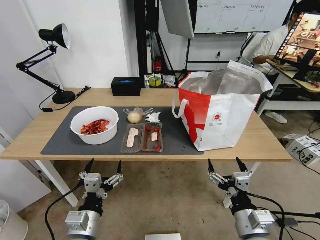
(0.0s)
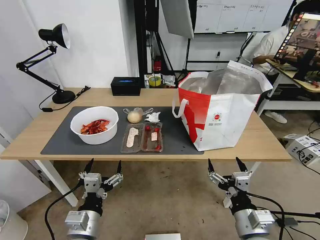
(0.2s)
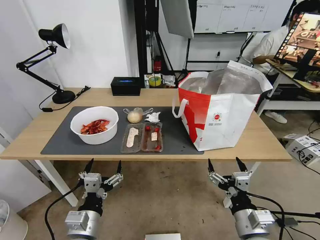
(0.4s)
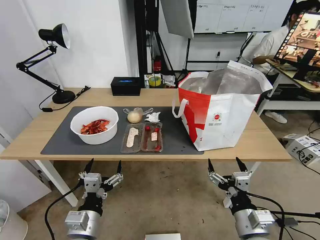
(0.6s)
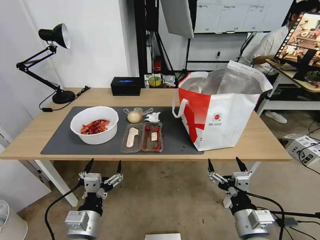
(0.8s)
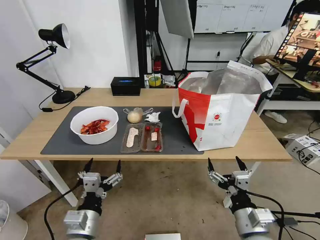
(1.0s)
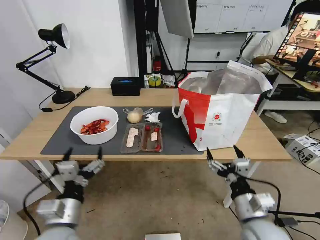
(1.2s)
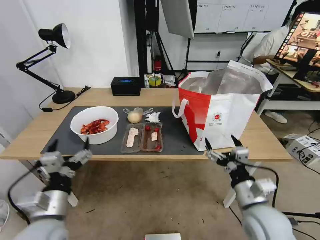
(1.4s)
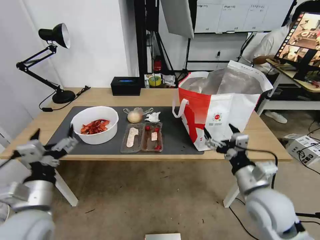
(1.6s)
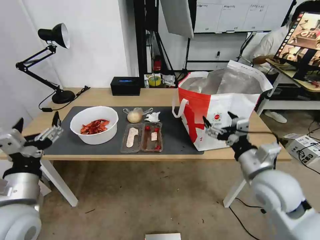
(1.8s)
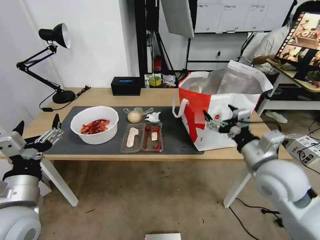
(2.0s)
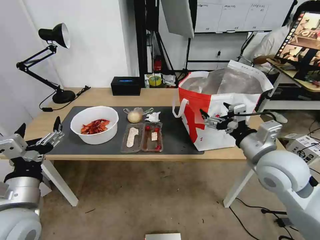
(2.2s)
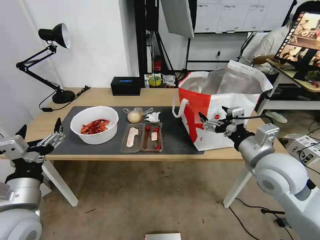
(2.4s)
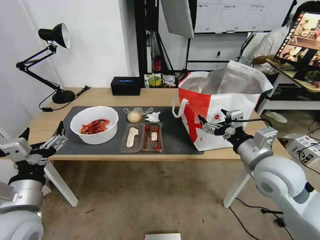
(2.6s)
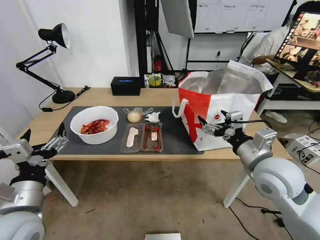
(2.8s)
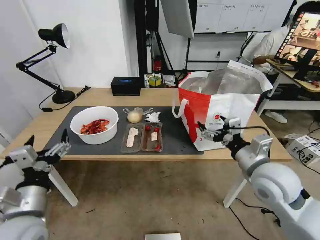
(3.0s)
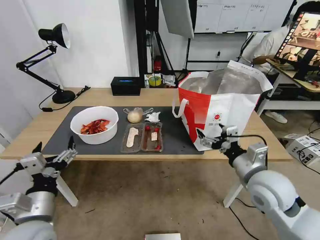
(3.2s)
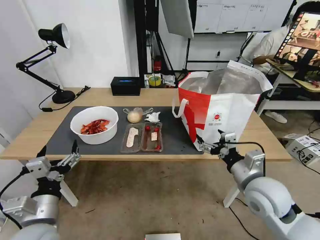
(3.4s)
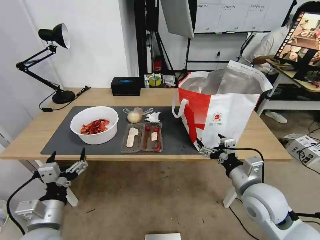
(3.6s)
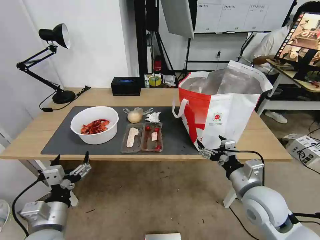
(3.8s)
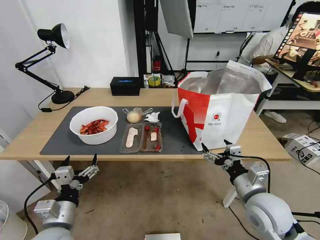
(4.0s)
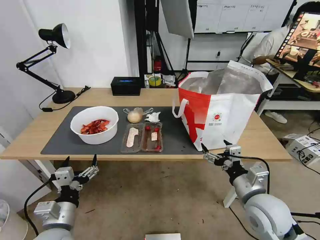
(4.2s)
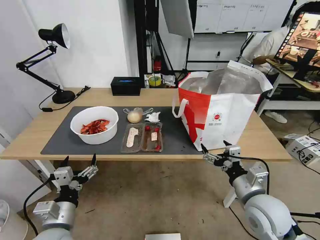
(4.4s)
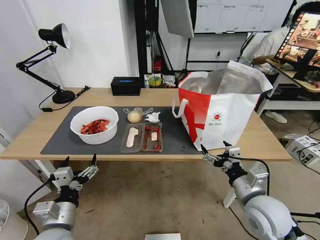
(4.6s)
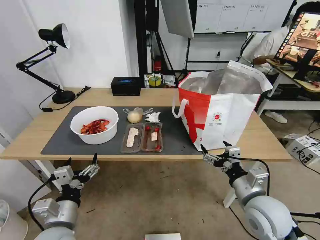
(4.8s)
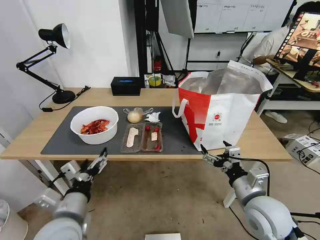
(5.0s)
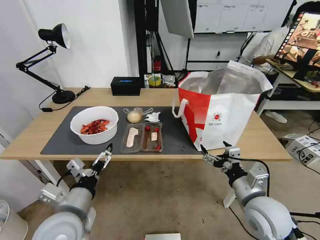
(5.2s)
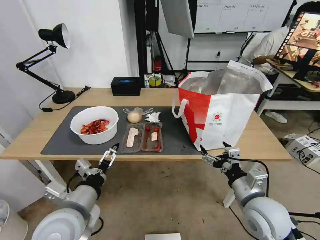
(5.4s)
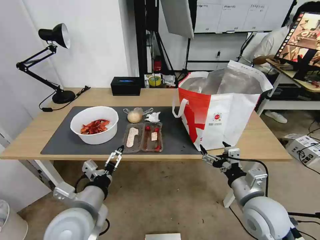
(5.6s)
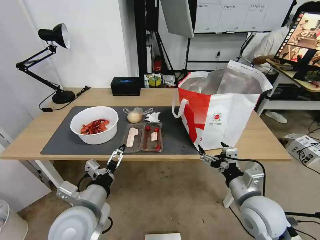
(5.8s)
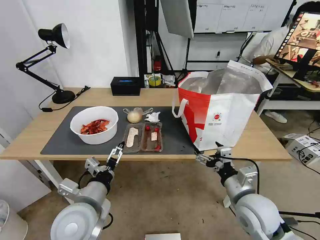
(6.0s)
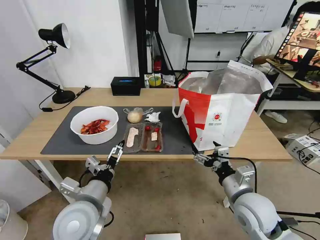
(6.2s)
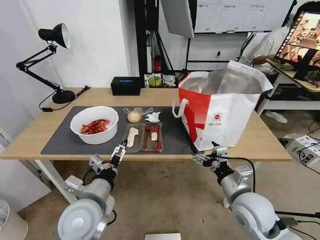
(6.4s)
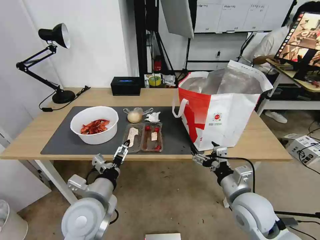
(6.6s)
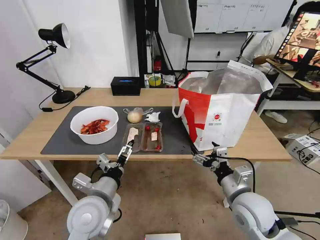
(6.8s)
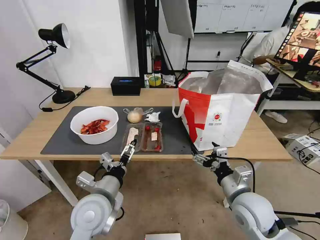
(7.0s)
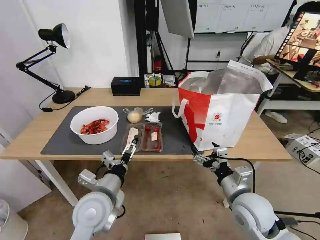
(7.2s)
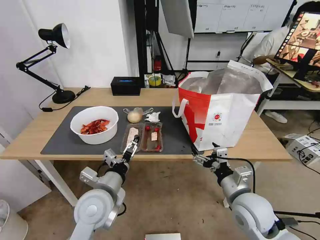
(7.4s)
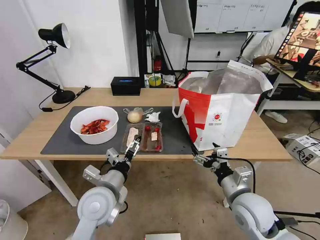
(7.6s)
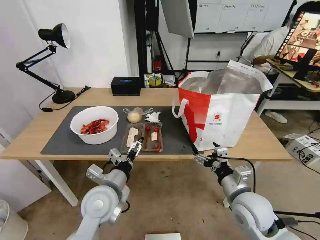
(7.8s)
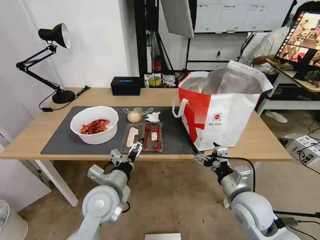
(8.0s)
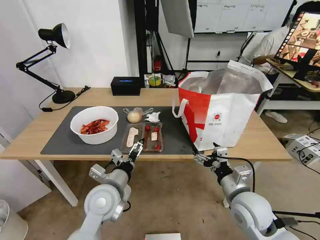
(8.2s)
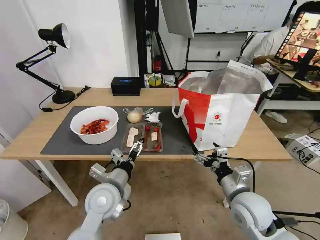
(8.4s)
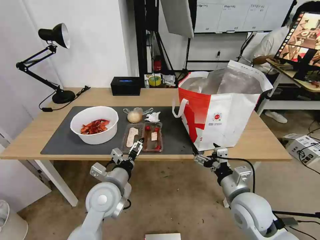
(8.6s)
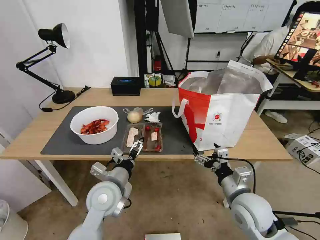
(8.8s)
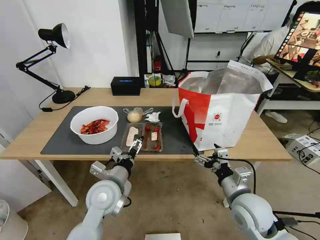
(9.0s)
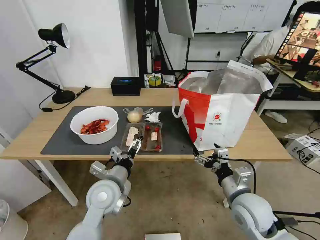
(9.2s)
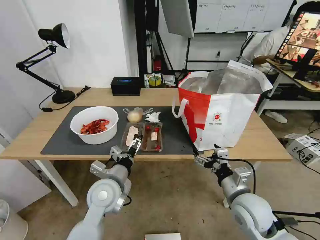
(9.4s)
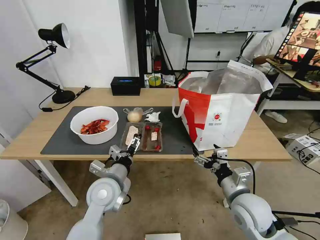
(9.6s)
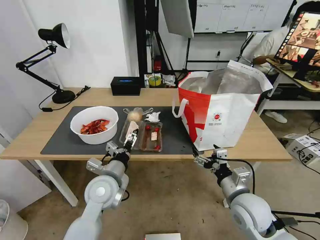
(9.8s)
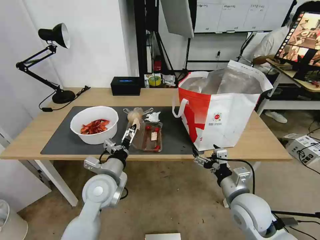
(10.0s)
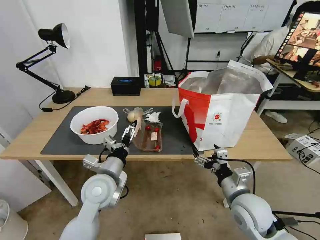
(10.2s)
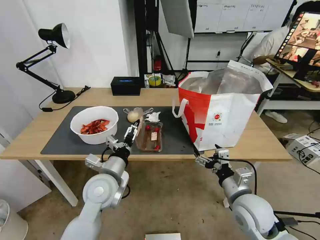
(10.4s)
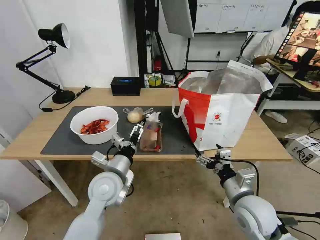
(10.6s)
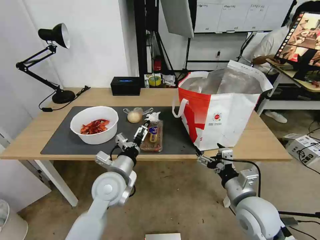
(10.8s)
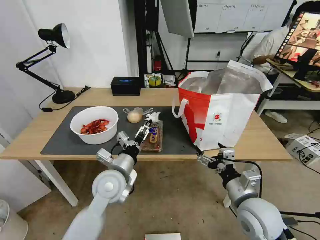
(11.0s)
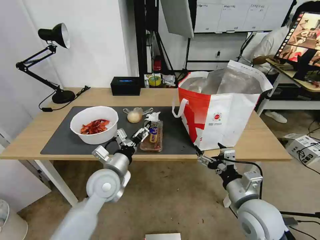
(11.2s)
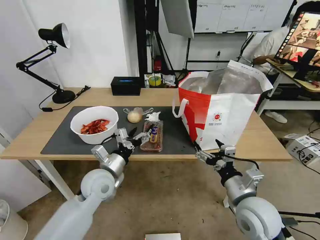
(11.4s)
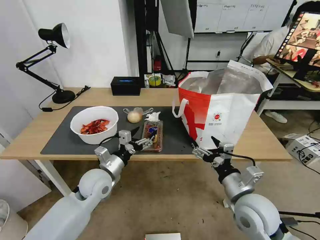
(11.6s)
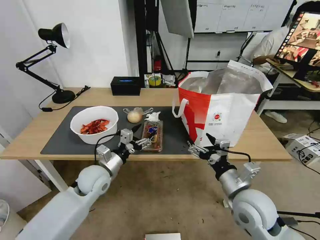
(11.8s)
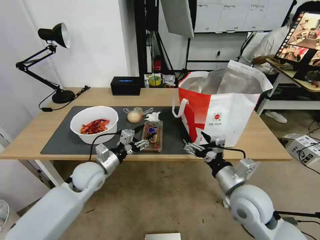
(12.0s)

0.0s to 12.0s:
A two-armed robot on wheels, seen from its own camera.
Task of the whole recording: Pick up the trash from the table and place it into the takeout bag.
1.6s to 3.0s: The right gripper moves upward, approximately 5 cm.
3.0s to 4.4s: The right gripper travels downward and backward by roughly 10 cm. The left gripper shifts roughly 10 cm downward.
4.4s to 6.0s: The left gripper goes about 10 cm to the right and upward.
6.0s to 7.6s: The left gripper shifts by about 5 cm.
7.6s to 10.4s: The grippers make only small movements.
10.4s to 12.0s: The left gripper moves to the left and forward, approximately 10 cm, and closes.

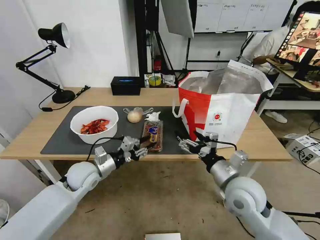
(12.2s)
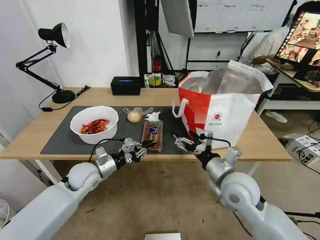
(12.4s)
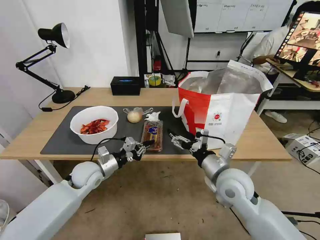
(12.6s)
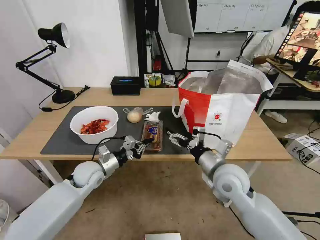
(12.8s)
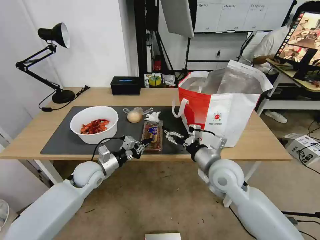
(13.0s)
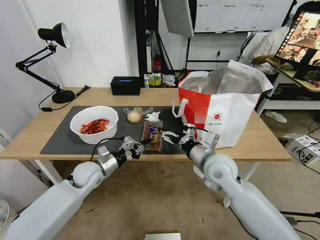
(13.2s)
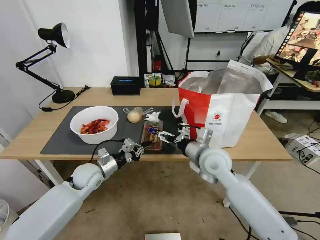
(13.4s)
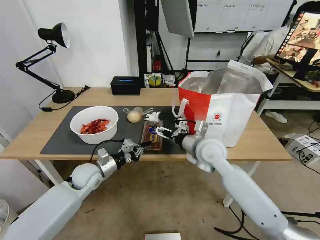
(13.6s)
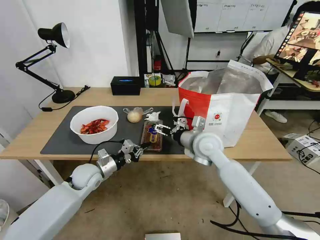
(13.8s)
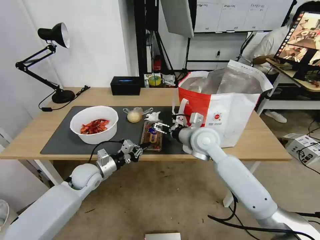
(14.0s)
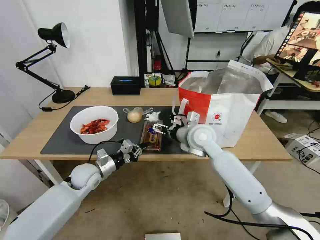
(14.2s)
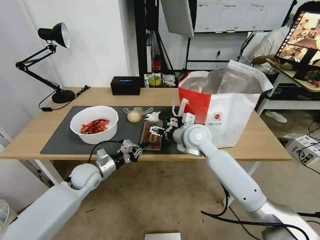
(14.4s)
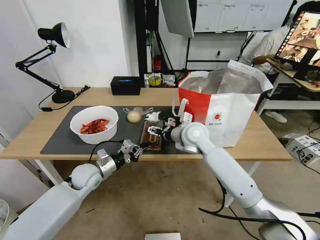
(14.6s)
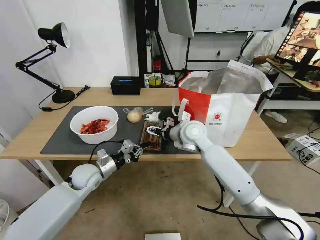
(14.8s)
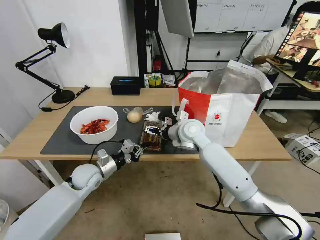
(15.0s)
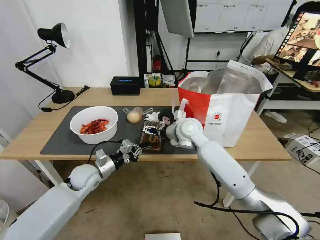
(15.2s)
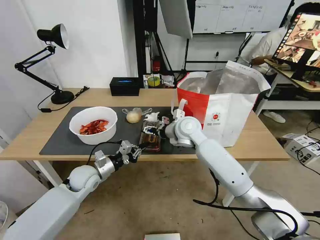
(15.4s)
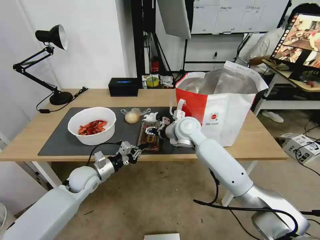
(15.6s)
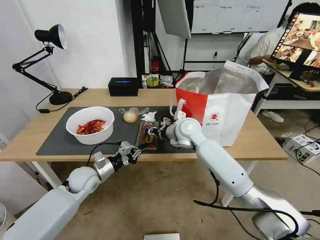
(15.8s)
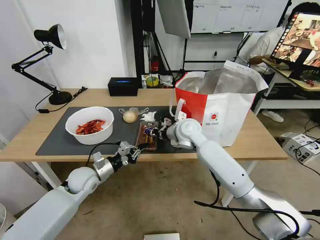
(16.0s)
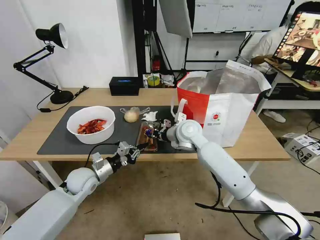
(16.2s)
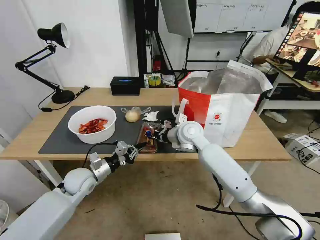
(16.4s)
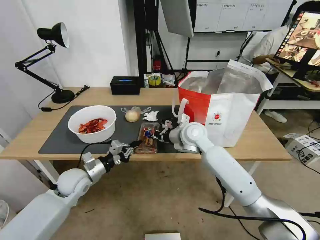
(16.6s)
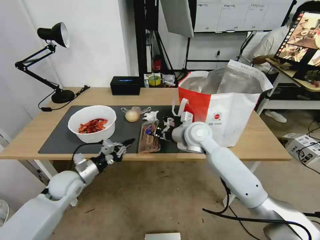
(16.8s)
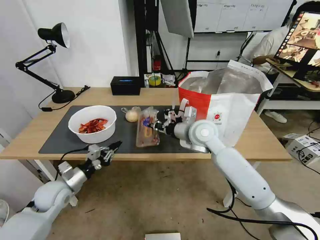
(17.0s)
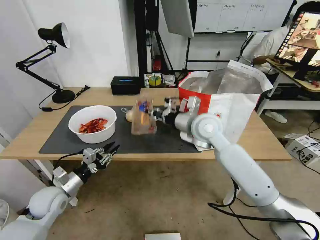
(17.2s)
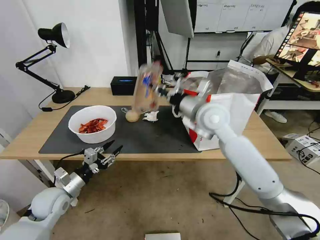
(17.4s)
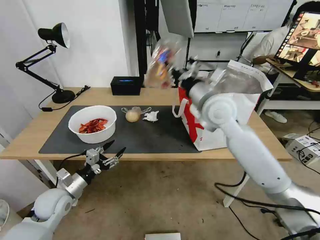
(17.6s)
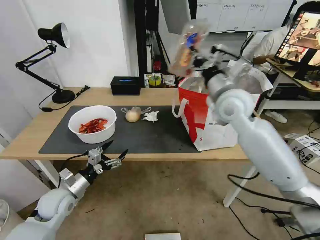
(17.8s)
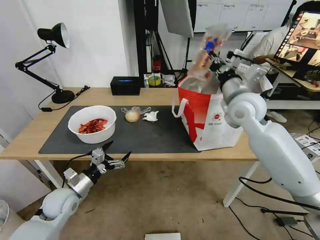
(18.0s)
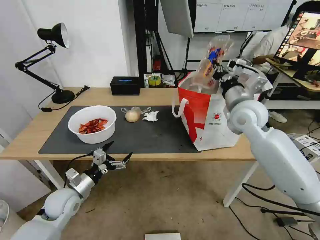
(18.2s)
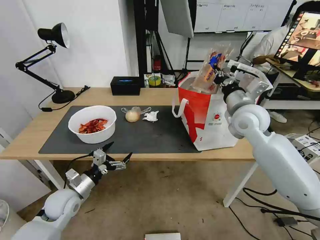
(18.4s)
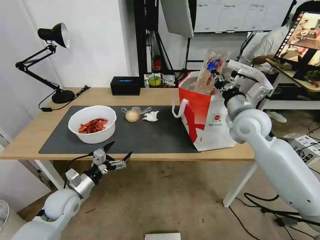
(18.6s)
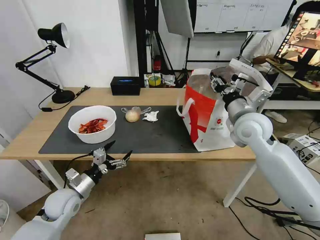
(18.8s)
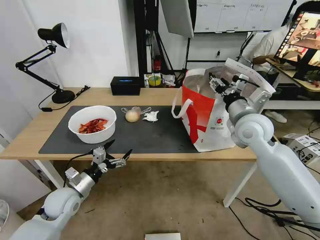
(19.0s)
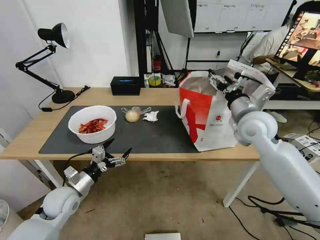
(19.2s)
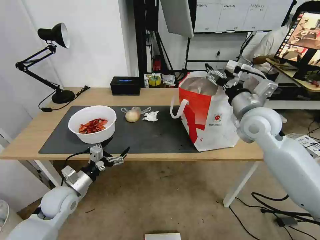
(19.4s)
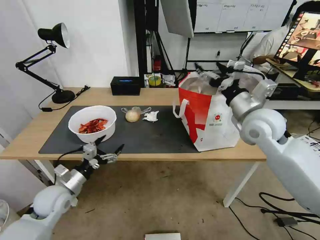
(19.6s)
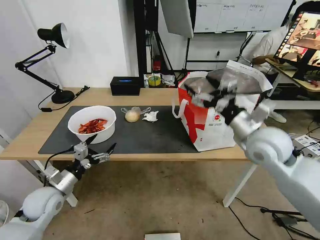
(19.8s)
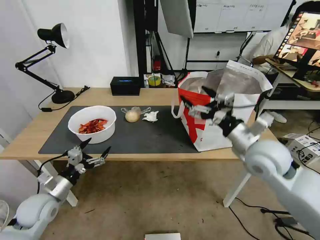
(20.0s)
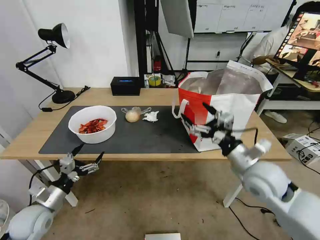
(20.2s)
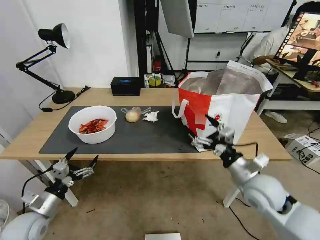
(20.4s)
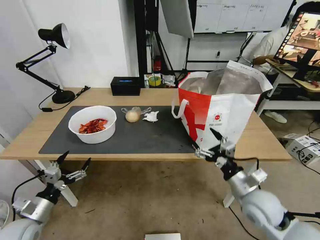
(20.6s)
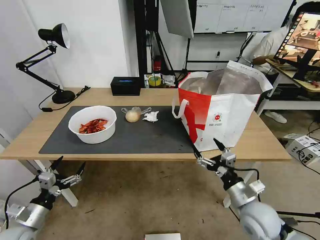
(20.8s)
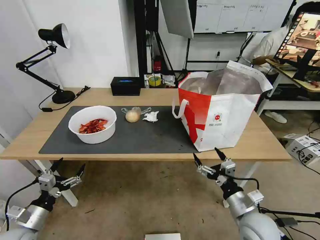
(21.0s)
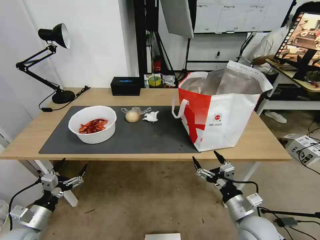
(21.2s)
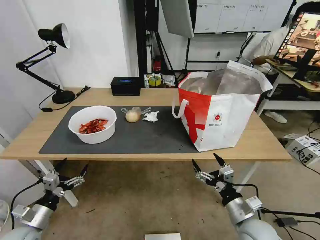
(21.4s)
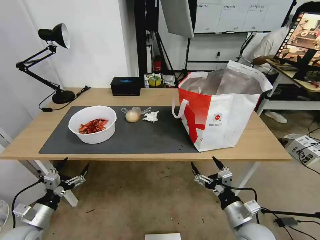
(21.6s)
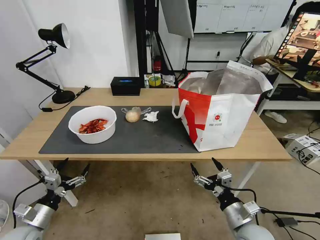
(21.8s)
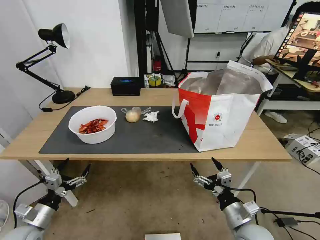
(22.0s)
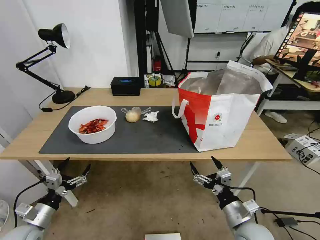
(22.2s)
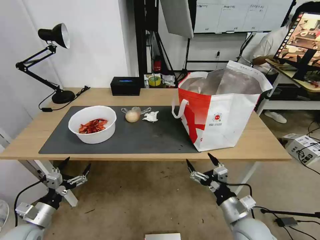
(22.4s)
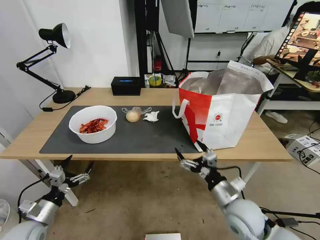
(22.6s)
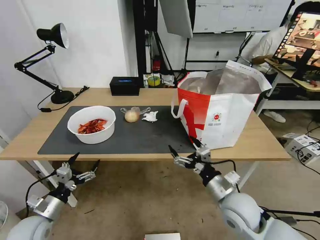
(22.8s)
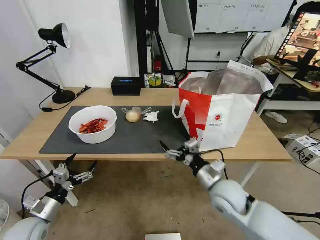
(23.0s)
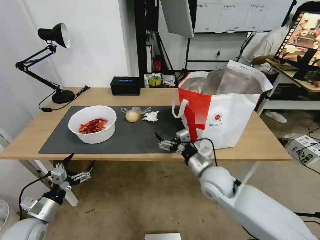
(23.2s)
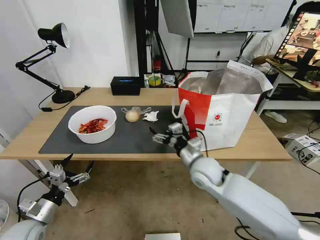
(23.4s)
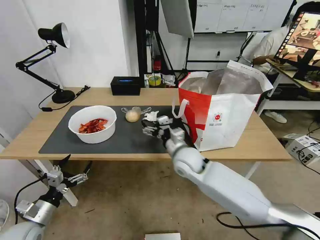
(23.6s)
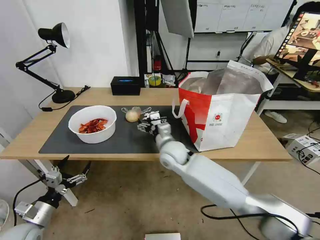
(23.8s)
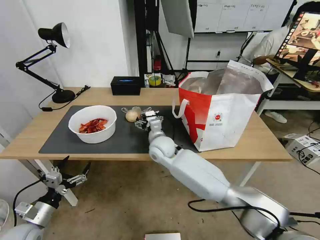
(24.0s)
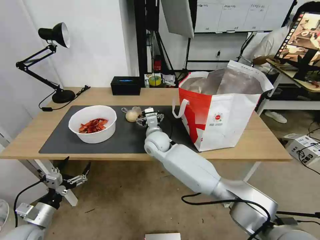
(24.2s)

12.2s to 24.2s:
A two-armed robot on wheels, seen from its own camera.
Task of the whole recording: Pick up the trash from the table and place it into the takeout bag.
12.2s to 13.8s: The left gripper closes, while the right gripper moves forward and to the left, some 15 cm.
13.8s to 15.2s: The right gripper travels forward by approximately 5 cm.
15.2s to 16.6s: The right gripper closes up.
16.6s to 18.2s: The right gripper is displaced to the right and upward by roughly 20 cm; the left gripper goes roughly 5 cm backward, and opens.
18.2s to 19.8s: The left gripper moves about 5 cm, while the right gripper moves backward, about 10 cm, and opens.
19.8s to 21.2s: The right gripper heads downward and backward, covering about 25 cm. Meanwhile the left gripper goes roughly 15 cm backward, to the left and downward.
21.2s to 22.6s: The right gripper ends up about 5 cm from where it was.
22.6s to 24.2s: The right gripper heads to the left and forward, covering approximately 35 cm.
